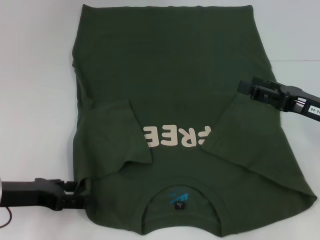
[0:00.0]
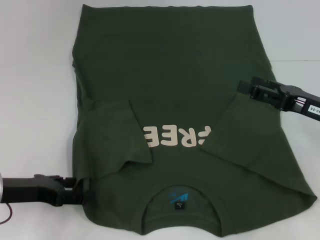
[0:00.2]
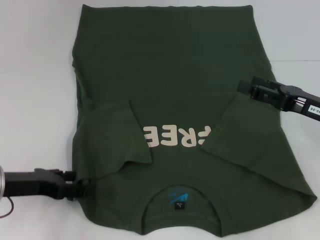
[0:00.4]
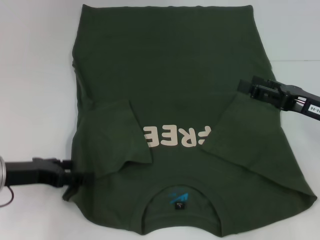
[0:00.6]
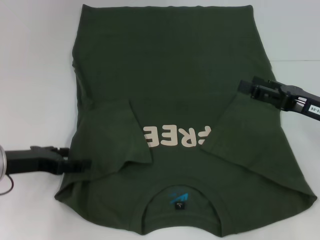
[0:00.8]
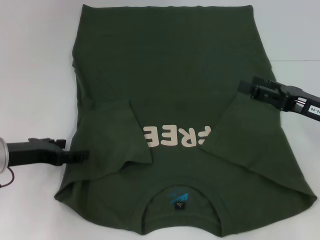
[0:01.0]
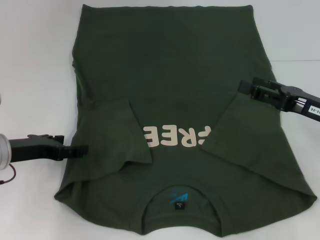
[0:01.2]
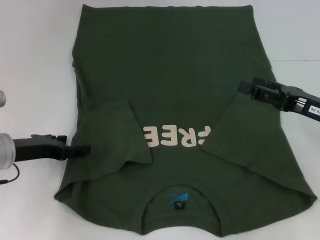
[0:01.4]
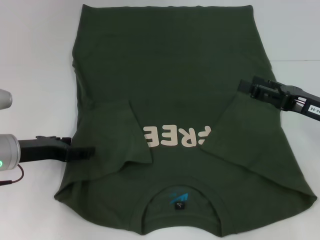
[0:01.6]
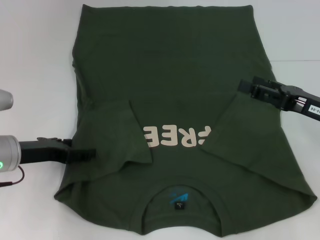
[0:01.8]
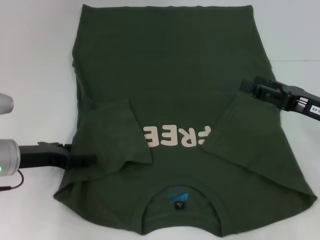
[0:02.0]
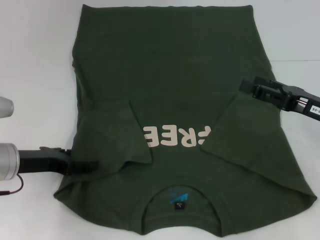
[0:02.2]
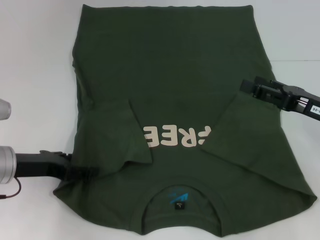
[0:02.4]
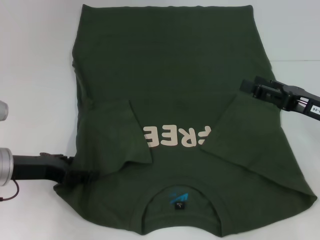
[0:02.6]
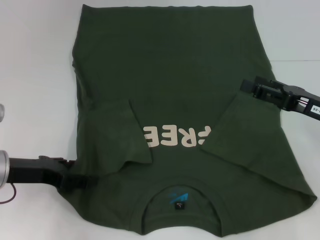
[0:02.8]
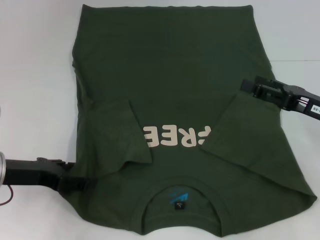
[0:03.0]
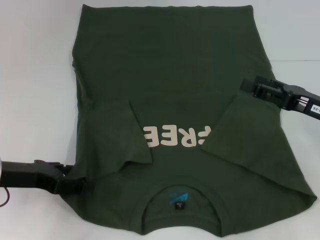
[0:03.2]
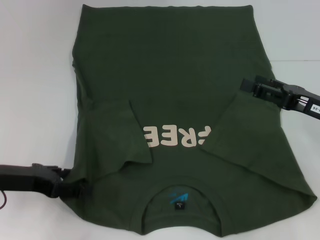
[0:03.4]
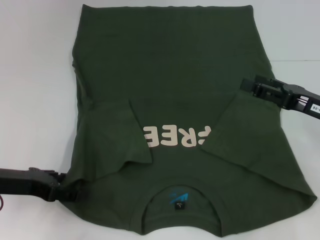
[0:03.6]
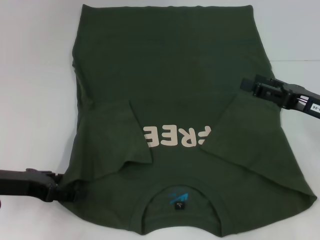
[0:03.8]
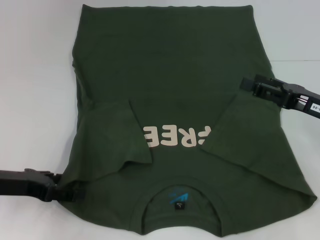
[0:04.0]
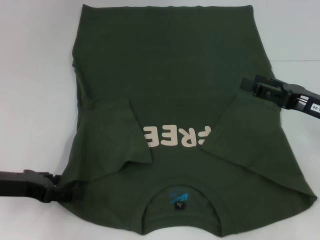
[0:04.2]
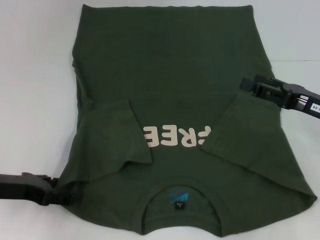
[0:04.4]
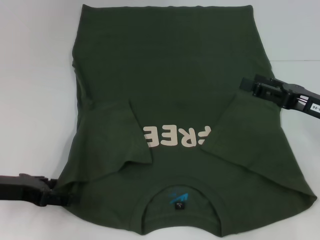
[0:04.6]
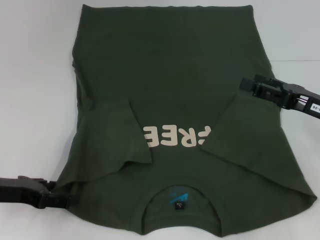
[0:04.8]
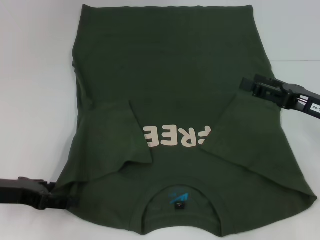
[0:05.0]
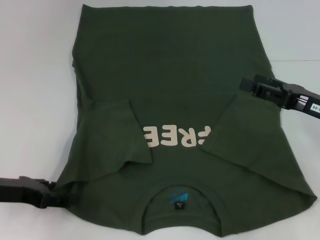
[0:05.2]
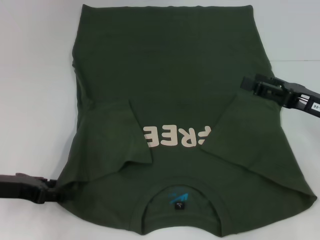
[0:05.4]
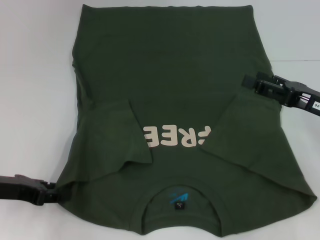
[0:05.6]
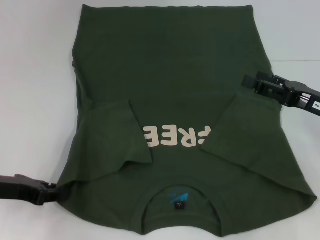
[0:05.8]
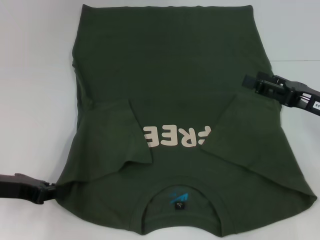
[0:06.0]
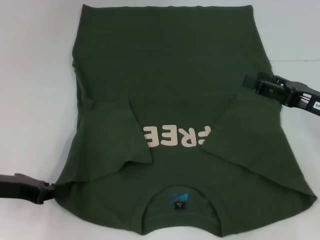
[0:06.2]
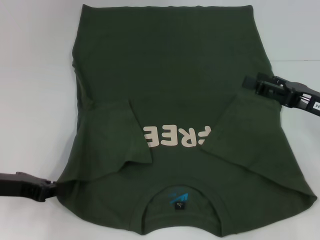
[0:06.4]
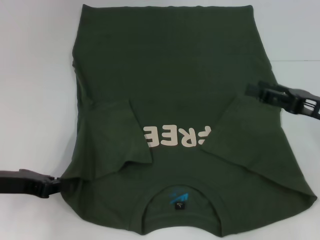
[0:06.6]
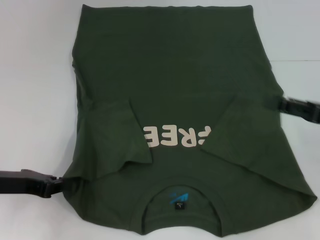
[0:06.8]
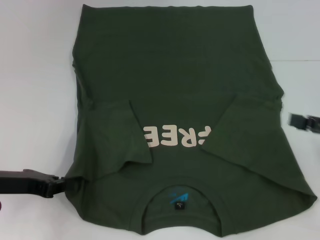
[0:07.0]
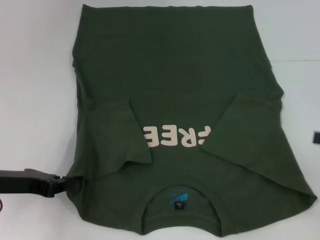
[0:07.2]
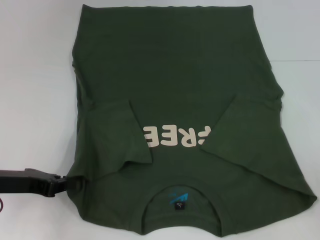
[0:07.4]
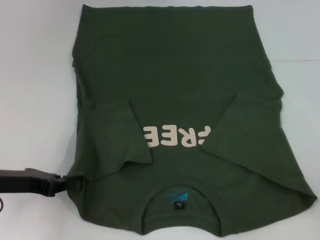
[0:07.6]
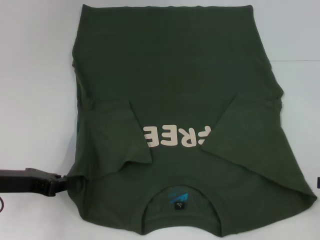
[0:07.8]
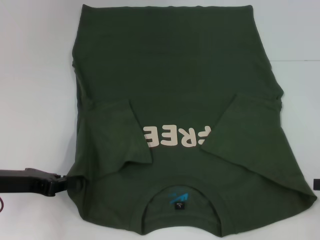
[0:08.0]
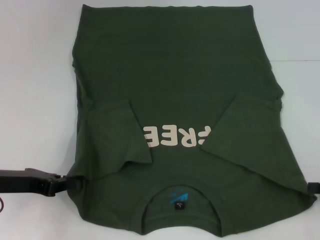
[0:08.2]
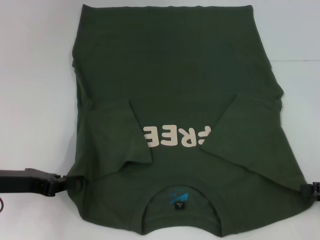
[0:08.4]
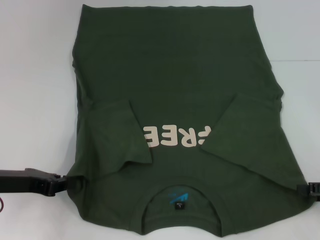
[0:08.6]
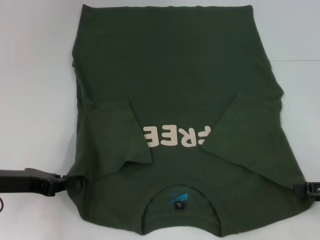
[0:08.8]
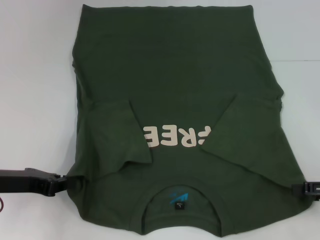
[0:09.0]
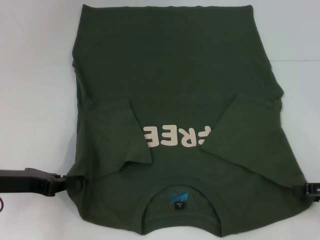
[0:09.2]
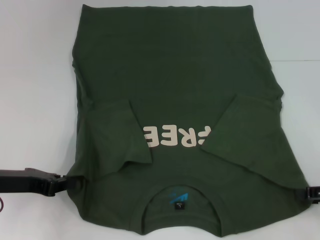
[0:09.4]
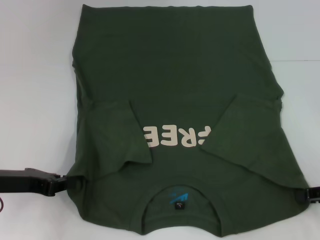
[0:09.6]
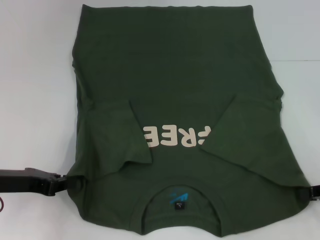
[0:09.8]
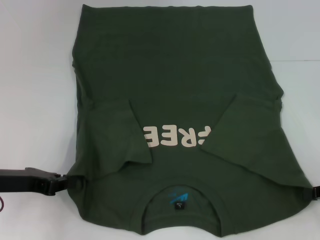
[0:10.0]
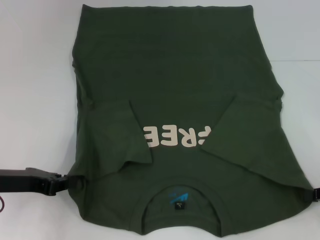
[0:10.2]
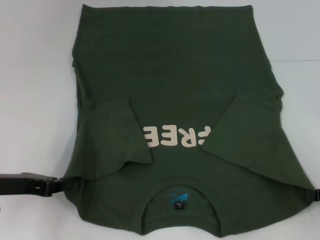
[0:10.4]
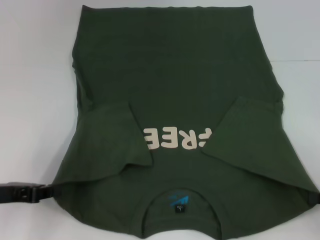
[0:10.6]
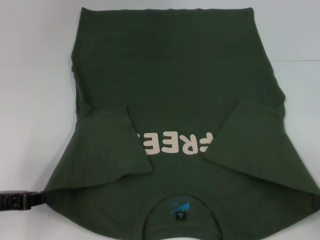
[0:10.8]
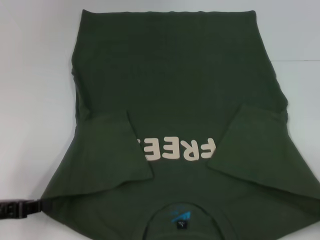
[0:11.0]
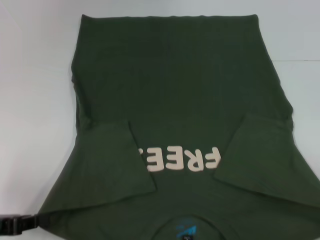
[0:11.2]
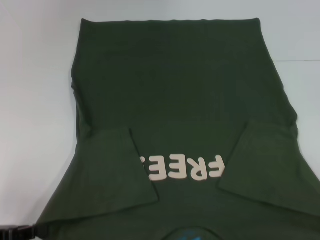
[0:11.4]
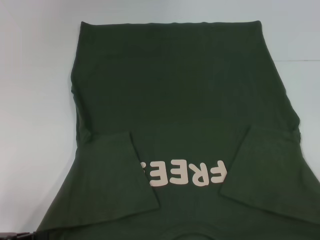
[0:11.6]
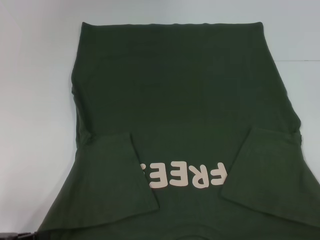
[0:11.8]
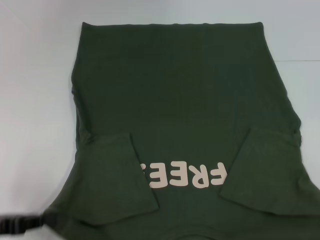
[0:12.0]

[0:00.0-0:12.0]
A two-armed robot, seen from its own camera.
Step, 0:00.0 to 0:10.4: Grab the bottom right corner with your right hand.
0:00.0 to 0:01.6: The left gripper heads forward, covering approximately 5 cm.
0:01.6 to 0:04.4: The grippers stay close to where they were, moving slightly.
0:04.4 to 0:06.0: The left gripper closes up.
0:06.0 to 0:07.6: The right gripper travels to the right and backward by some 15 cm.
0:10.4 to 0:12.0: The grippers both shift backward by about 10 cm.

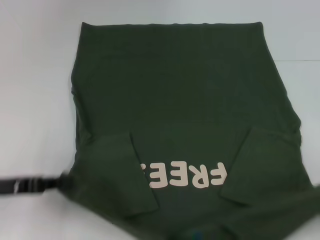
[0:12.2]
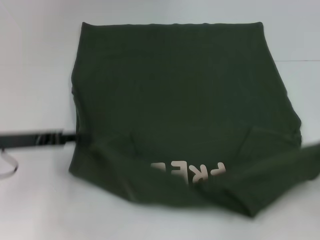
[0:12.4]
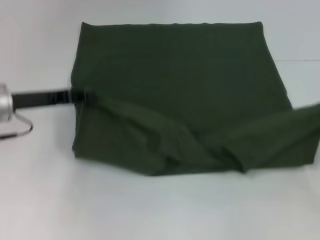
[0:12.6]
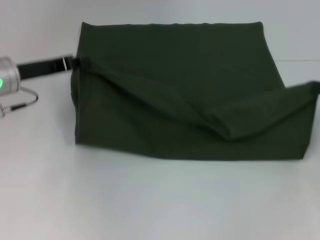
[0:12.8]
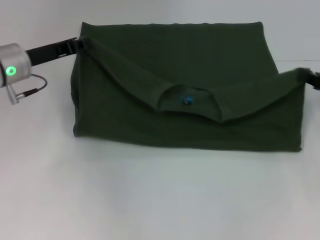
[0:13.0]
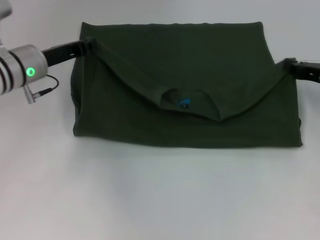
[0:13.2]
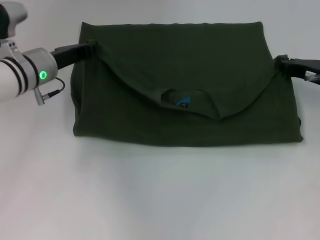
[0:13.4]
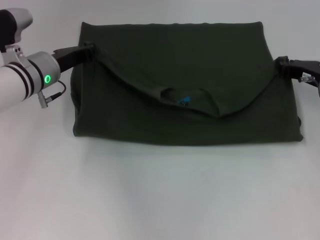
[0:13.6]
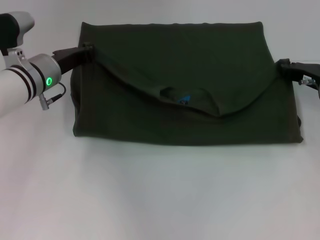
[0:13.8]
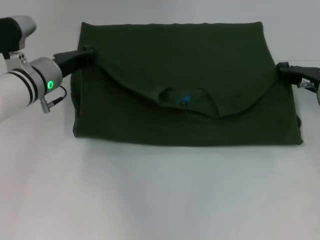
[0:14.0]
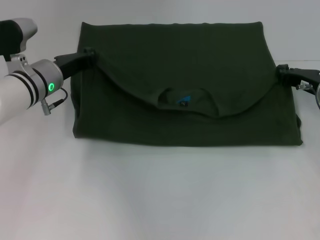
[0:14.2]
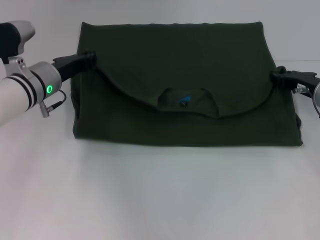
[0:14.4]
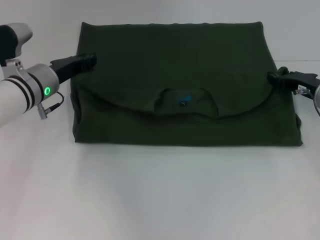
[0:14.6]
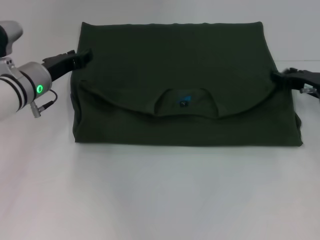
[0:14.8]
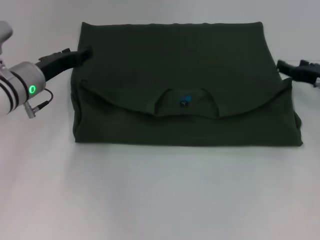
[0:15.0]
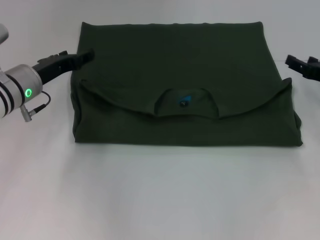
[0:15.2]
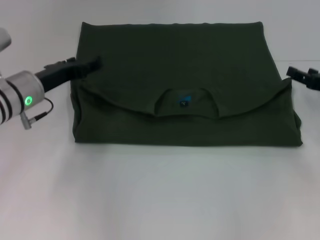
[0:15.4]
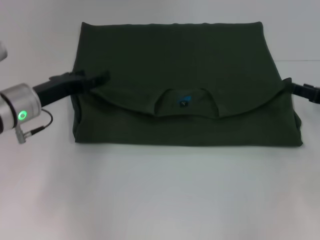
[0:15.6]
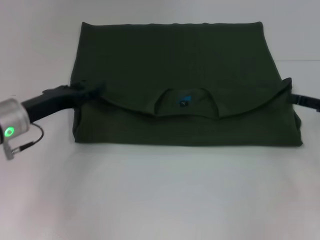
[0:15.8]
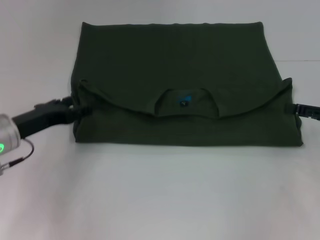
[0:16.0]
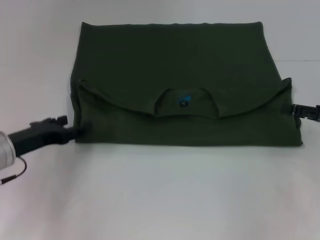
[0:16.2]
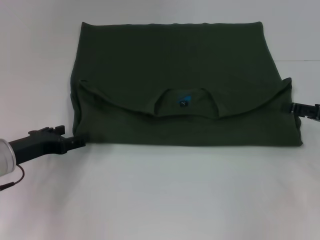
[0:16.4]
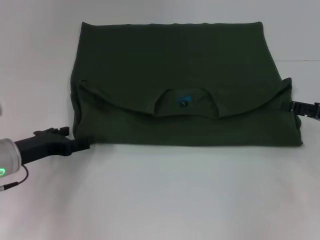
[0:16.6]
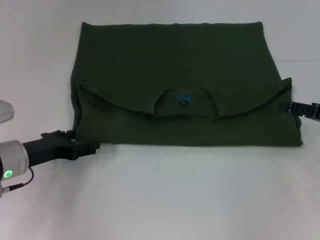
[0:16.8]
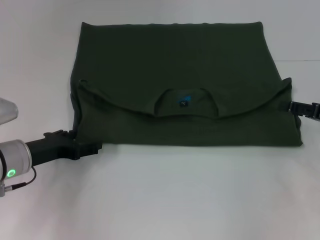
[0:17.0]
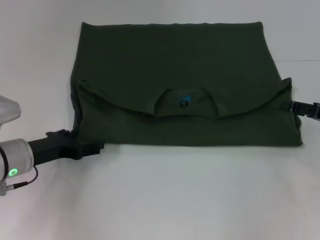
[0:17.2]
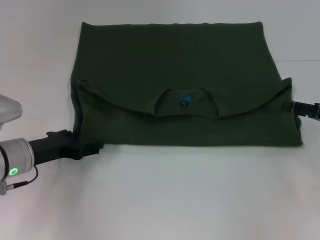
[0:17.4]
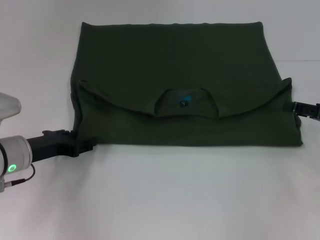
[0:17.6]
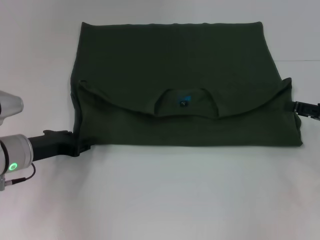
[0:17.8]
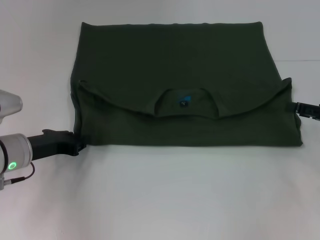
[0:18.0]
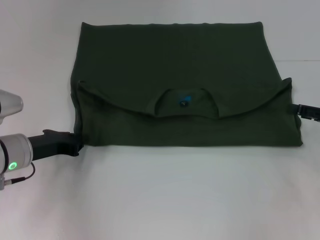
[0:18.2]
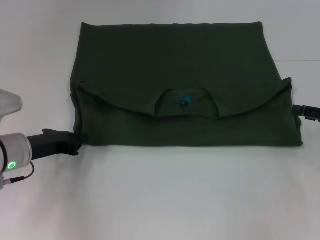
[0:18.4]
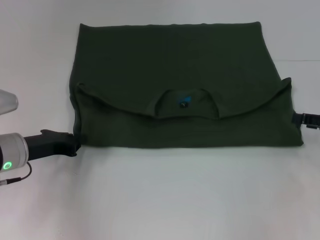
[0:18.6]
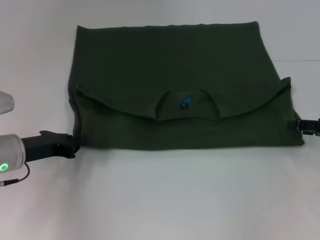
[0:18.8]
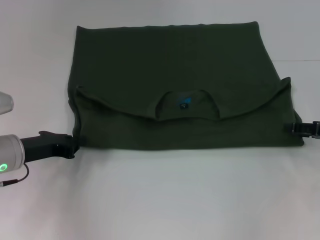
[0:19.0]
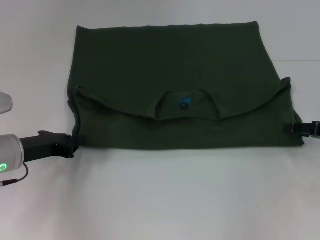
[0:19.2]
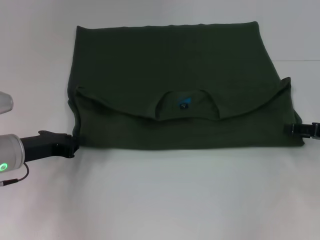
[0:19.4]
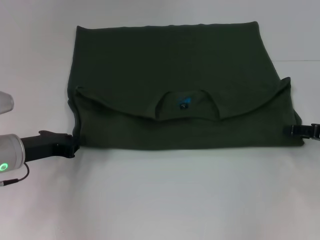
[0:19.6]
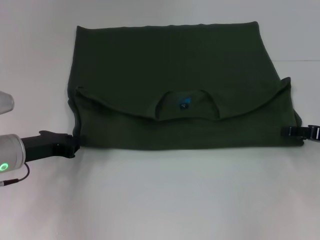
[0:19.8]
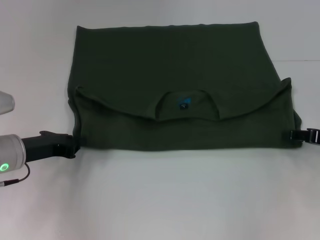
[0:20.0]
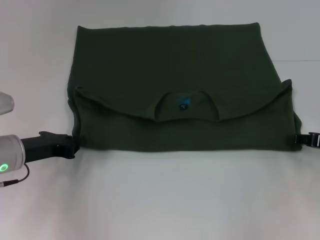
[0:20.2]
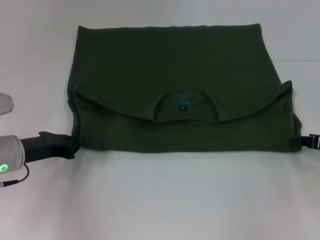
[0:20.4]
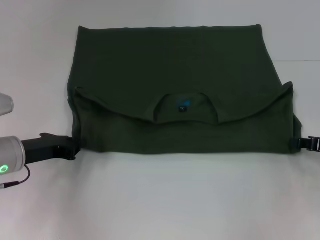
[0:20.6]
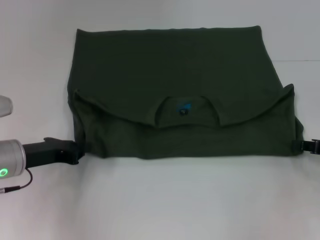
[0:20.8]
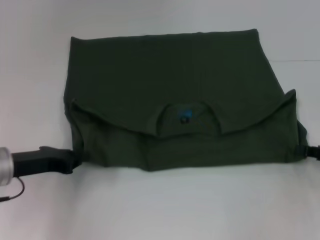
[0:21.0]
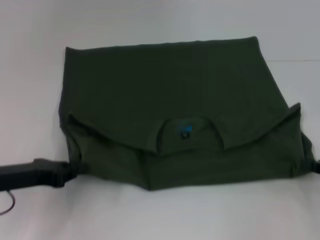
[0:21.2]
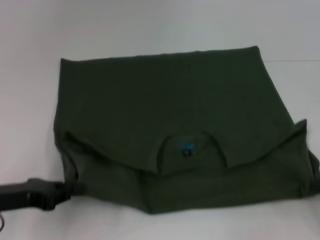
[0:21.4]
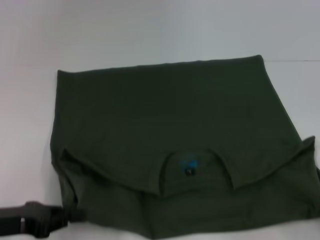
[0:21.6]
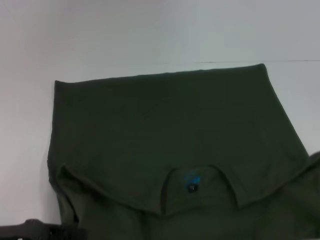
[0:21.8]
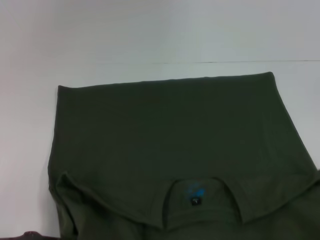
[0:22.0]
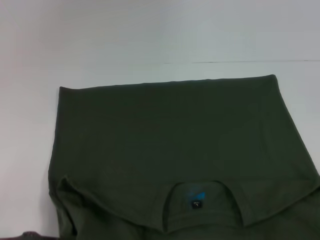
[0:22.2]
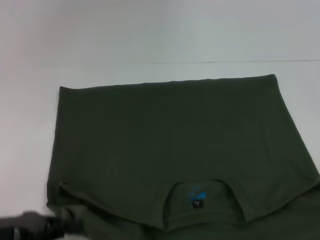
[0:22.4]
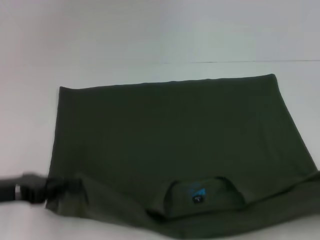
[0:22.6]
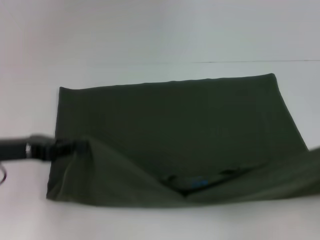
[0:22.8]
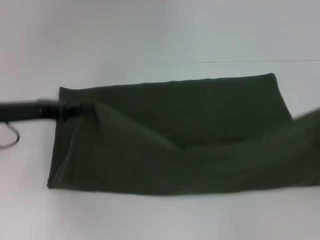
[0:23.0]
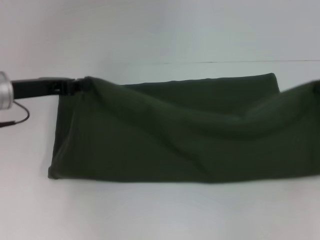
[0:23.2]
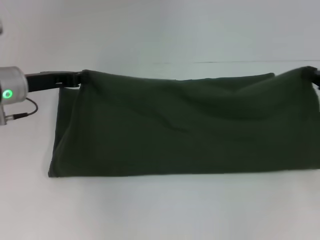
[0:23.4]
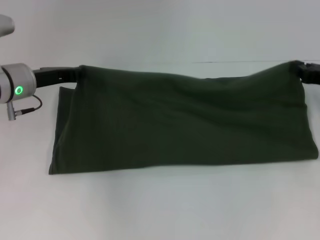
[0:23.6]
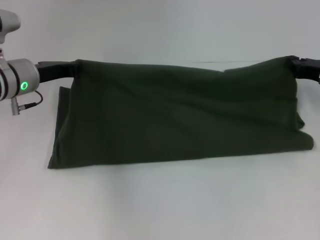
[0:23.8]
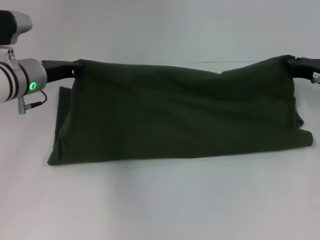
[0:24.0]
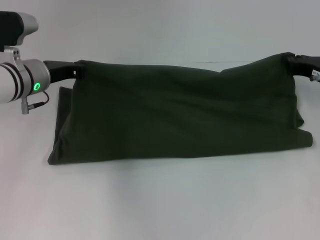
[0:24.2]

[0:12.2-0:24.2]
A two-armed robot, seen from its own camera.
Step, 0:12.2 to 0:15.2: Fold the clothes with your left hand.
Step, 0:12.2 to 0:15.2: Fold the clothes with your right hand.
Step, 0:15.4 to 0:22.0: Pull the clothes with your left hand.
Step, 0:15.4 to 0:22.0: Pull the clothes with your right hand.
0:12.2 to 0:13.8: The right gripper travels forward and to the left by about 25 cm; the left gripper moves forward and to the right, approximately 20 cm.
0:13.8 to 0:15.2: The left gripper opens. Meanwhile the right gripper opens its fingers.
0:15.2 to 0:16.6: The left gripper shifts some 10 cm backward. Meanwhile the right gripper is displaced backward by roughly 5 cm.
0:16.6 to 0:18.2: The left gripper closes its fingers.
0:18.2 to 0:19.8: The grippers stay close to where they were, moving slightly.
0:19.8 to 0:21.2: Both grippers move backward, some 5 cm. The right gripper closes its fingers.
0:21.2 to 0:22.6: The right gripper moves backward, roughly 10 cm.
0:22.6 to 0:24.2: The left gripper goes about 20 cm forward and to the right. The right gripper moves forward and to the left, approximately 25 cm.
